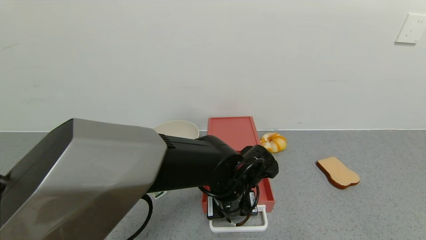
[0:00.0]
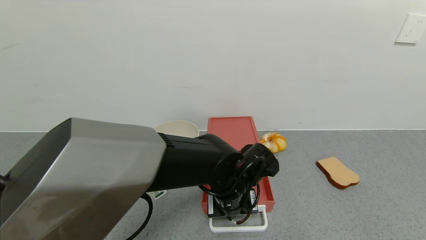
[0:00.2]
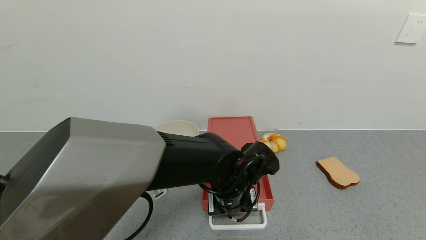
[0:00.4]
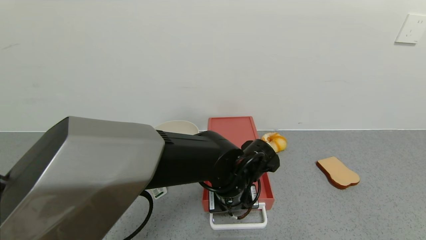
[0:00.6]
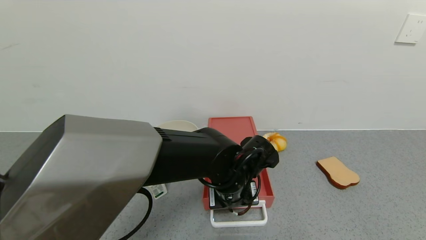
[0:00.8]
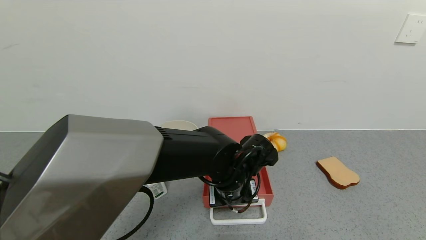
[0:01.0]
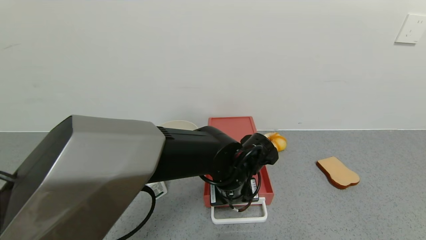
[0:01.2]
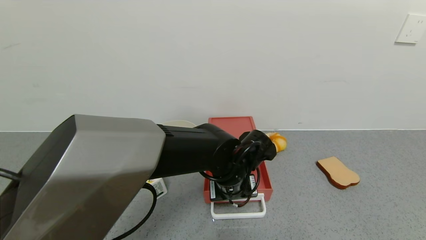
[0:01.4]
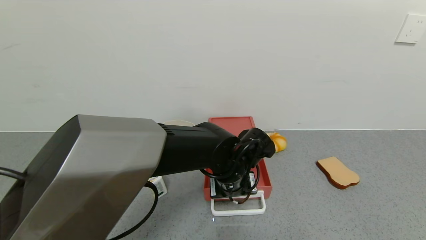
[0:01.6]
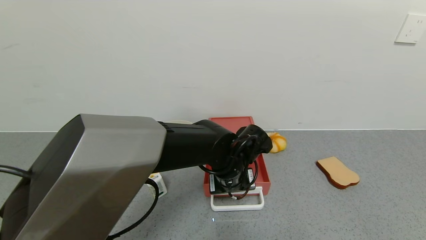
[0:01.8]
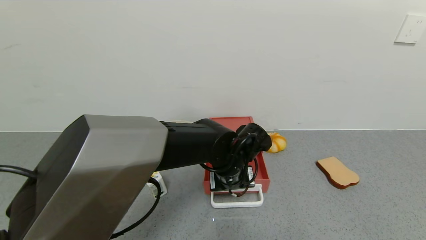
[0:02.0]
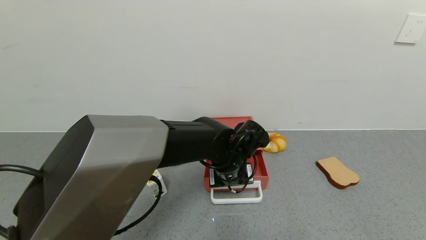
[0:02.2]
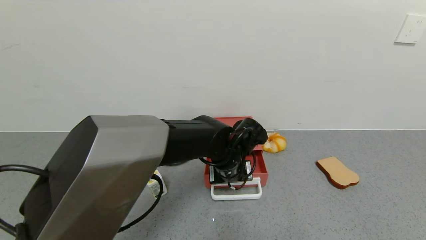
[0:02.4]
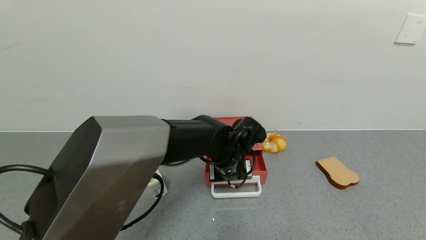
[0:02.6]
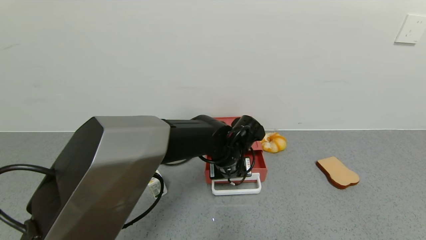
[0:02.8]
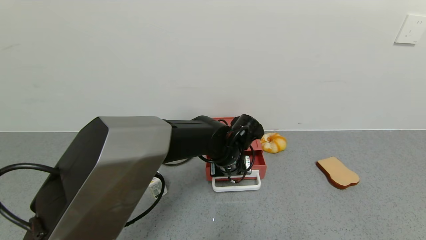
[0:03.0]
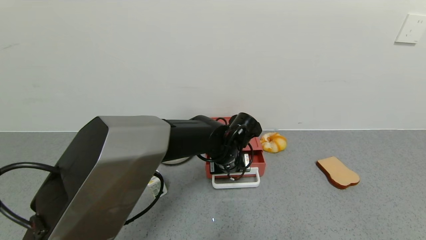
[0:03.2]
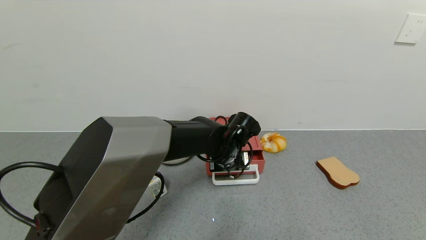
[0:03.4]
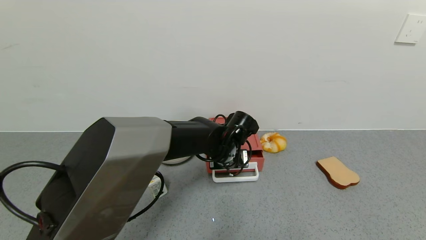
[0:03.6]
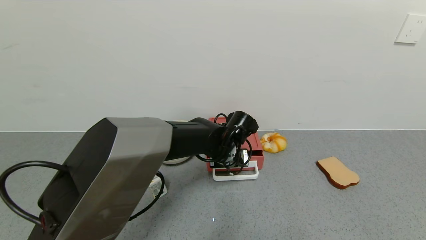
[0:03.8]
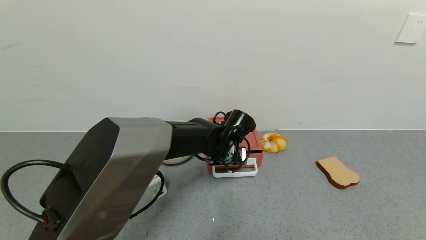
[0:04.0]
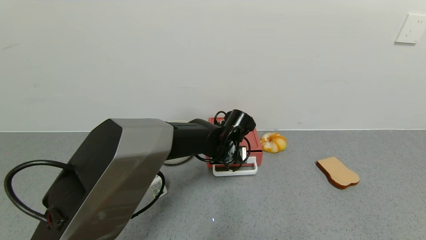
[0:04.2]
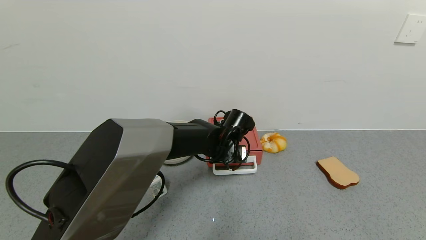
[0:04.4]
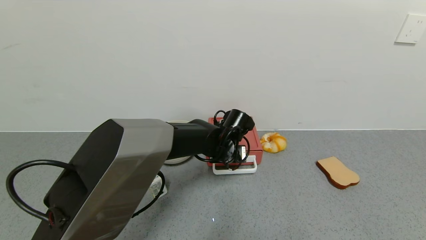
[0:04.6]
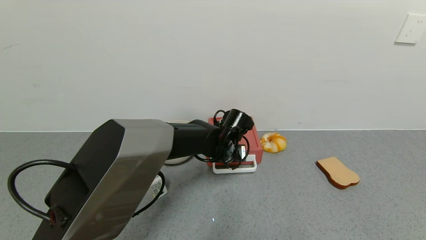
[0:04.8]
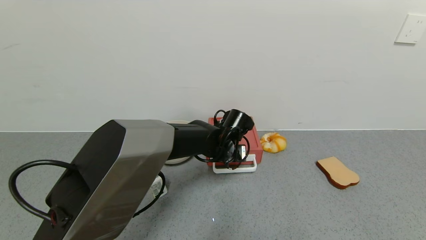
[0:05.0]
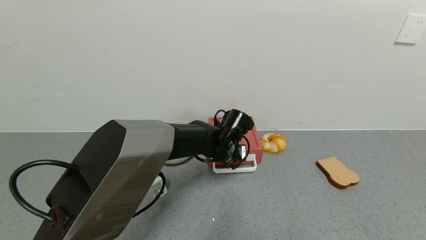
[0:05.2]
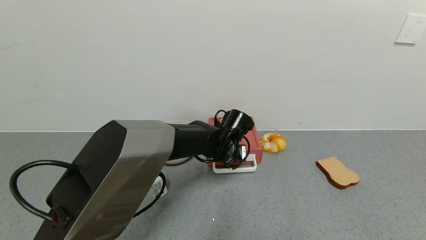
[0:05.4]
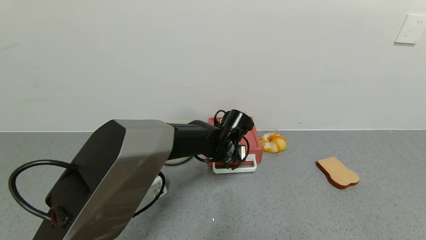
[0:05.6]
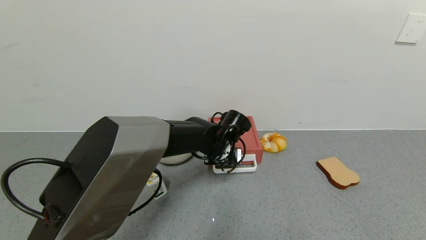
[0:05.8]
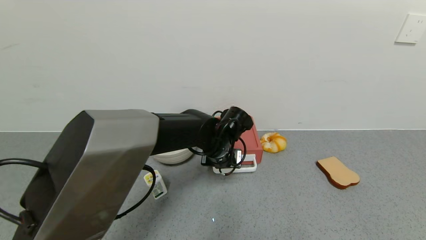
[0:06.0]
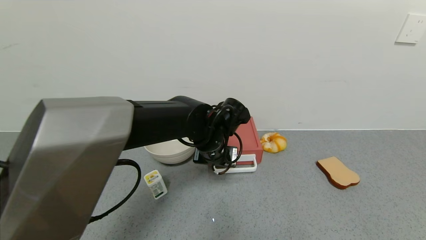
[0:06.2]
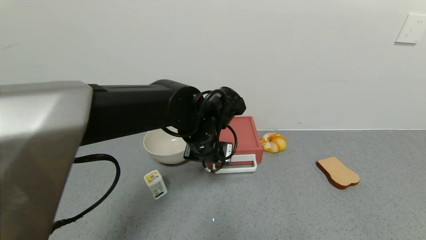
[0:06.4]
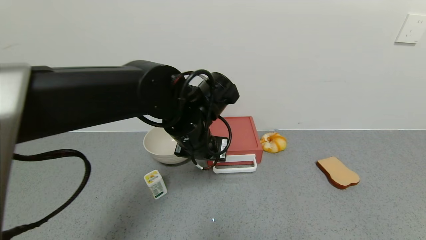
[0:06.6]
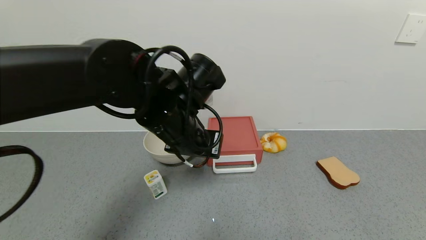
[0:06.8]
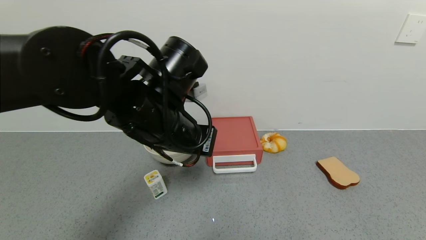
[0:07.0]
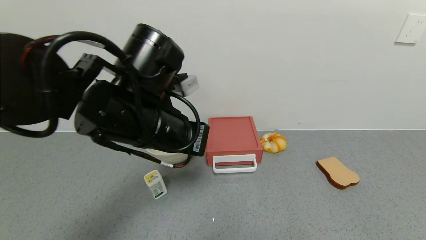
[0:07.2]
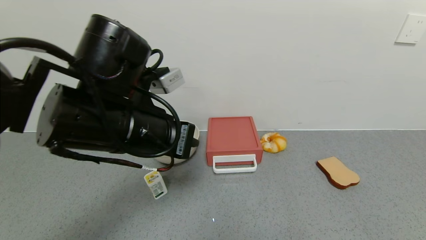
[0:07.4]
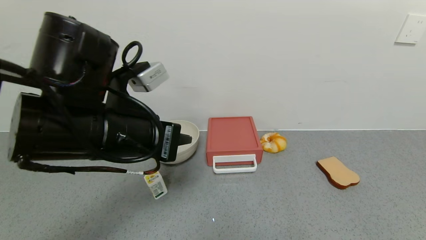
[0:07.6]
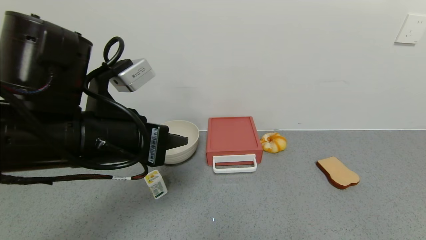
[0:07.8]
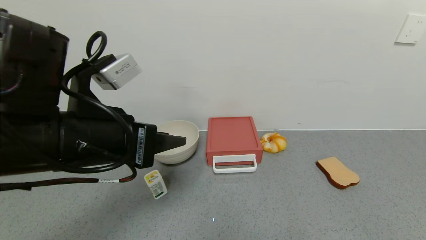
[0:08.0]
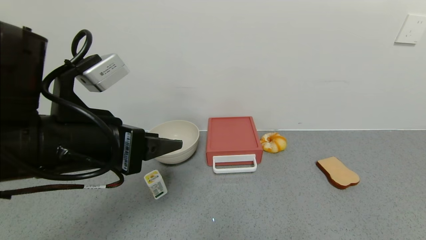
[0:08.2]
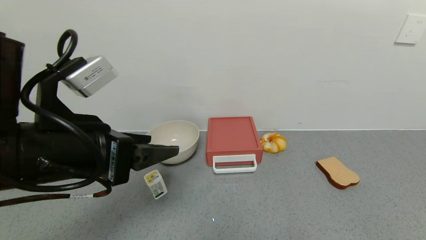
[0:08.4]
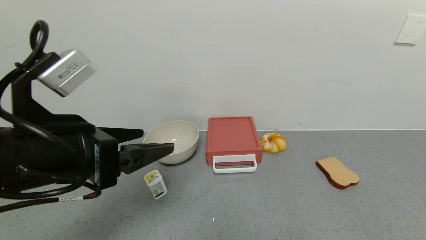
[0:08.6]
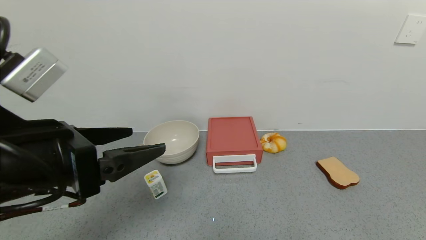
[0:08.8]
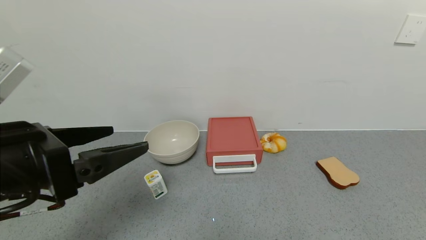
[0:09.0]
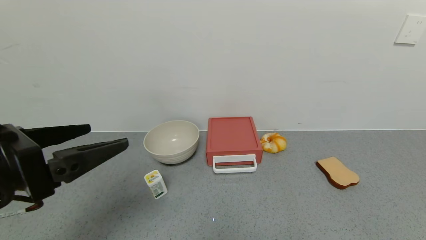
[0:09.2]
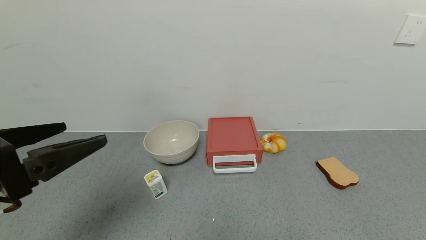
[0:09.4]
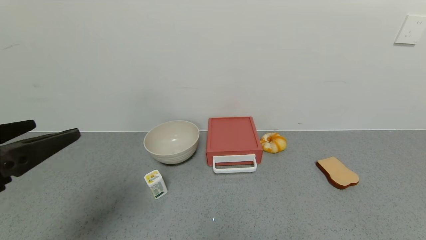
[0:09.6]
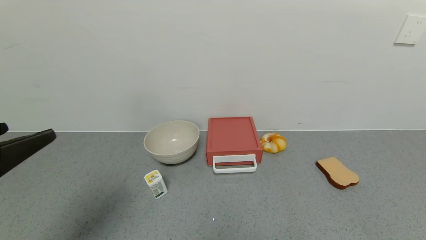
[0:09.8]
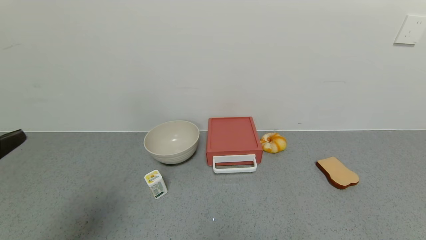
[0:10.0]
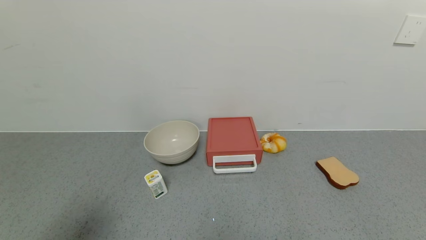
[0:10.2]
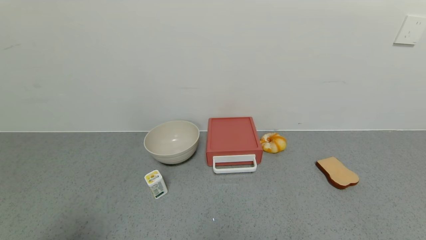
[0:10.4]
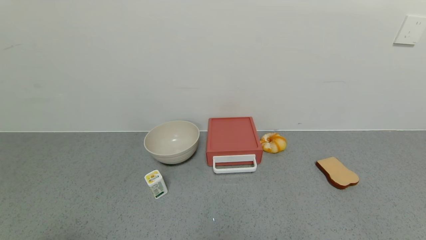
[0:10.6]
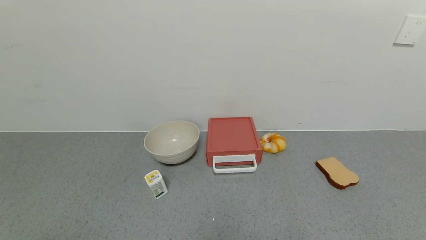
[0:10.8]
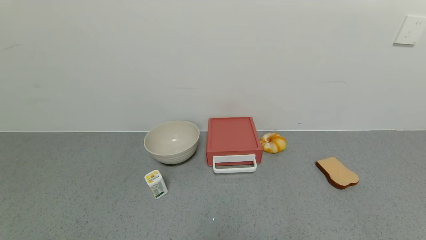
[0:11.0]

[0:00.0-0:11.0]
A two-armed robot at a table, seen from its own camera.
Task of the whole recording: use the gripper to open the drawer and close the red drawer.
Step, 0:00.0 to 0:06.4: Close the red drawer with the left gripper.
0:00.0 to 0:01.6: There are only small adjustments of the grippers.
0:01.6 to 0:03.2: The left gripper moves forward, approximately 5 cm.
0:03.2 to 0:04.8: The grippers stay close to where they were, moving slightly.
0:04.8 to 0:06.2: The left gripper is displaced upward by about 5 cm.
0:06.2 to 0:07.8: The left gripper goes some 20 cm backward, to the left and upward.
0:07.8 to 0:09.4: The left gripper heads to the left and backward, covering about 15 cm, and opens up.
0:09.4 to 0:11.0: The left gripper travels backward by some 20 cm.
